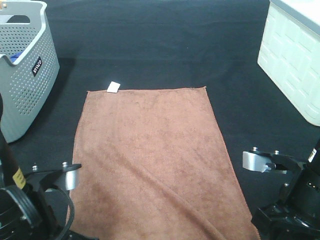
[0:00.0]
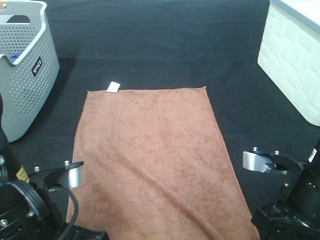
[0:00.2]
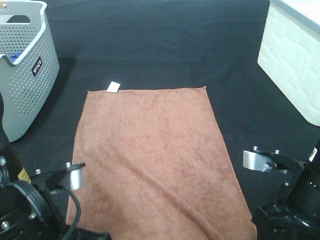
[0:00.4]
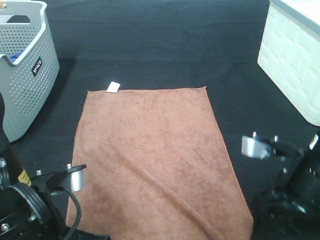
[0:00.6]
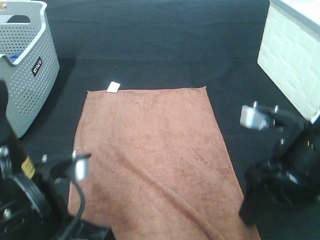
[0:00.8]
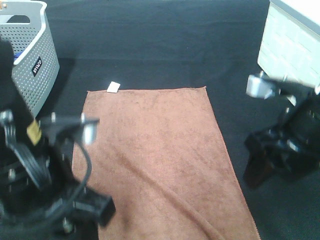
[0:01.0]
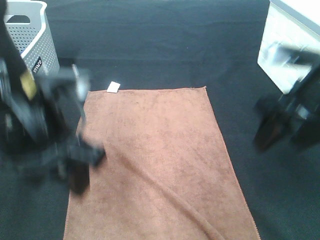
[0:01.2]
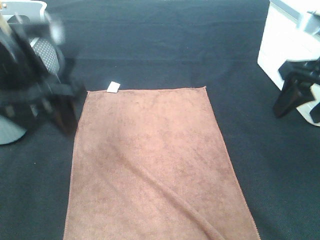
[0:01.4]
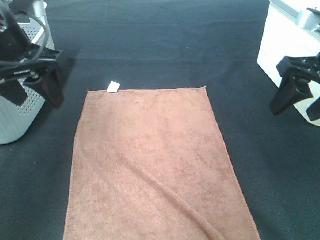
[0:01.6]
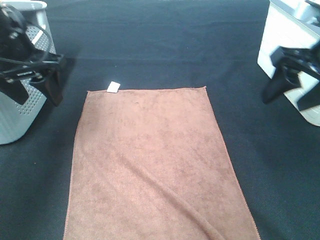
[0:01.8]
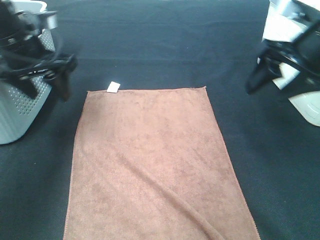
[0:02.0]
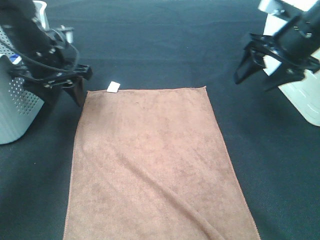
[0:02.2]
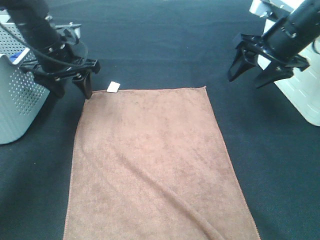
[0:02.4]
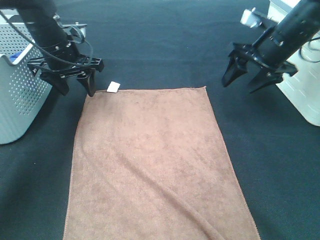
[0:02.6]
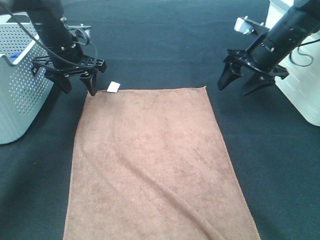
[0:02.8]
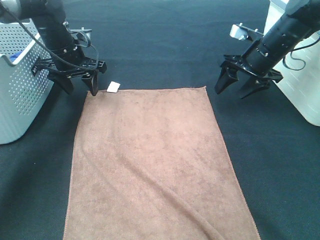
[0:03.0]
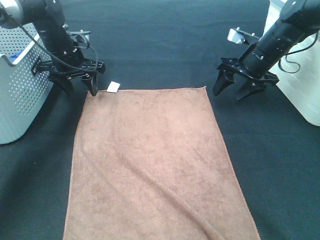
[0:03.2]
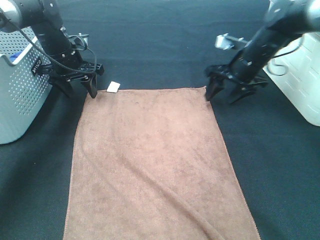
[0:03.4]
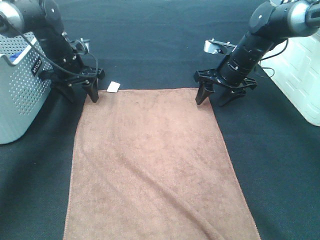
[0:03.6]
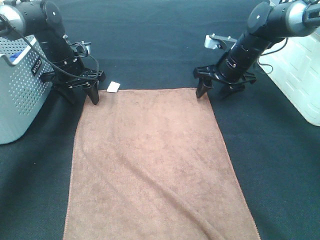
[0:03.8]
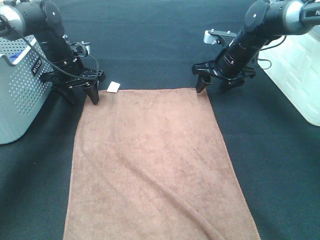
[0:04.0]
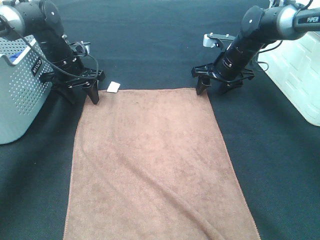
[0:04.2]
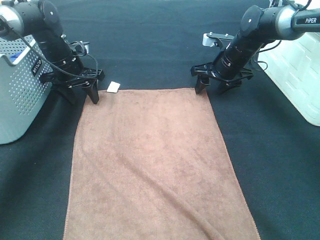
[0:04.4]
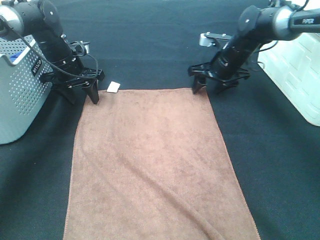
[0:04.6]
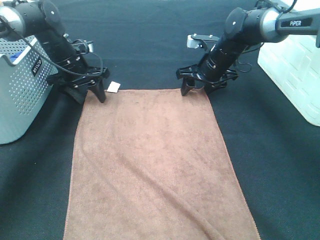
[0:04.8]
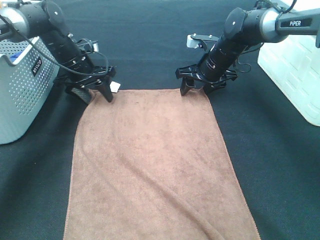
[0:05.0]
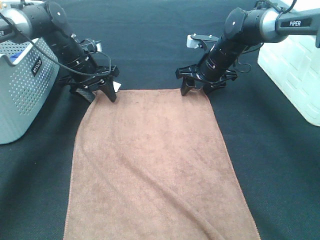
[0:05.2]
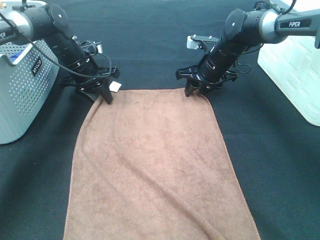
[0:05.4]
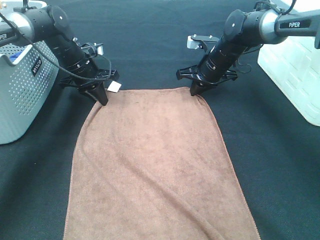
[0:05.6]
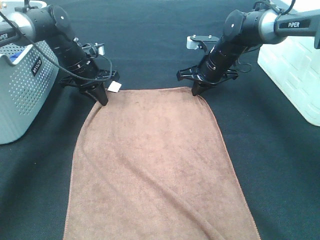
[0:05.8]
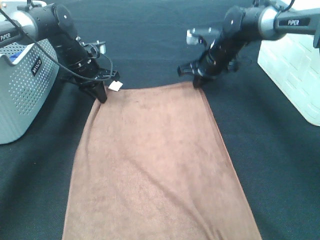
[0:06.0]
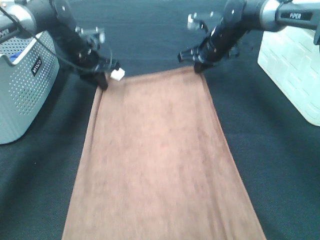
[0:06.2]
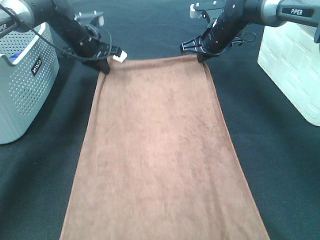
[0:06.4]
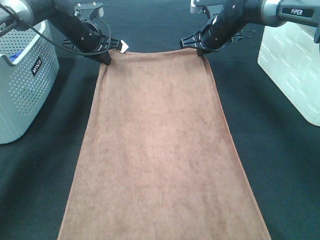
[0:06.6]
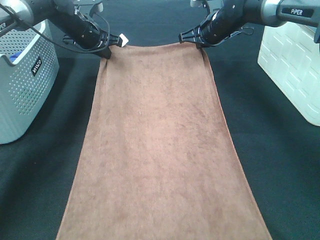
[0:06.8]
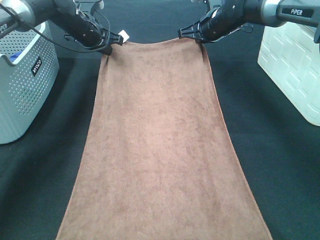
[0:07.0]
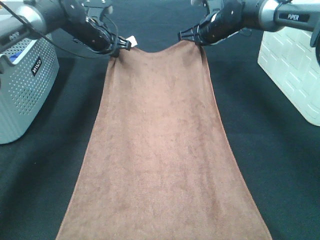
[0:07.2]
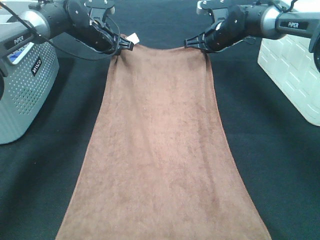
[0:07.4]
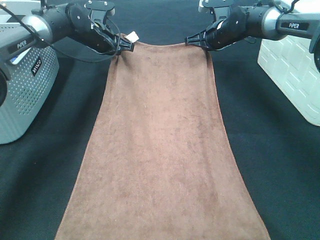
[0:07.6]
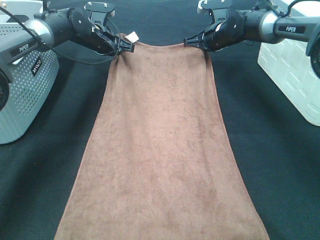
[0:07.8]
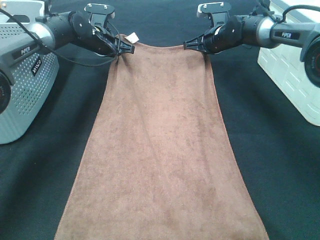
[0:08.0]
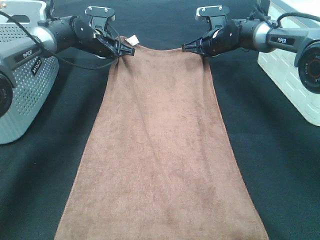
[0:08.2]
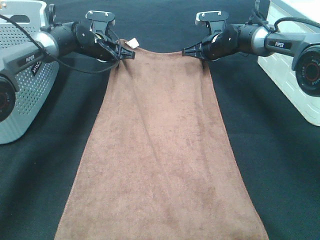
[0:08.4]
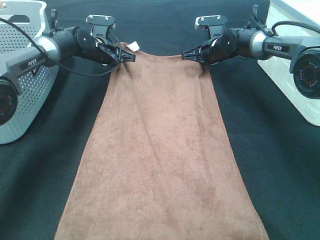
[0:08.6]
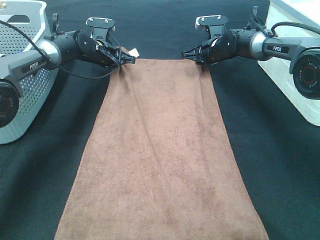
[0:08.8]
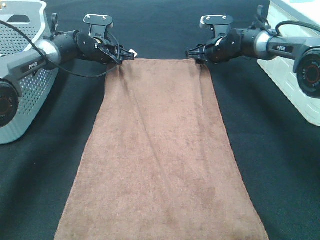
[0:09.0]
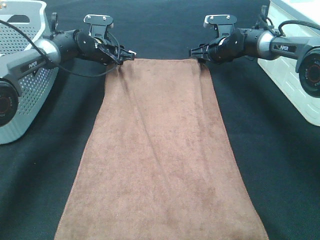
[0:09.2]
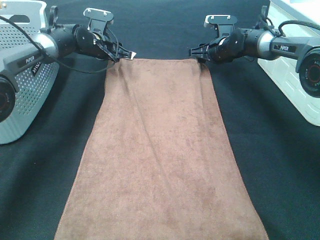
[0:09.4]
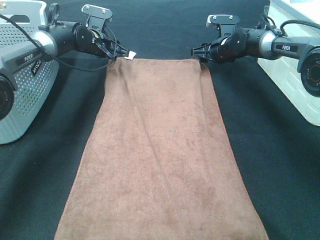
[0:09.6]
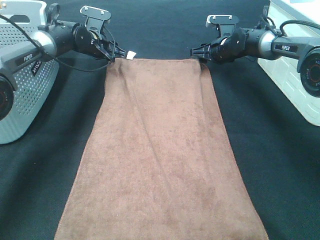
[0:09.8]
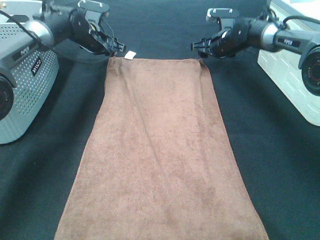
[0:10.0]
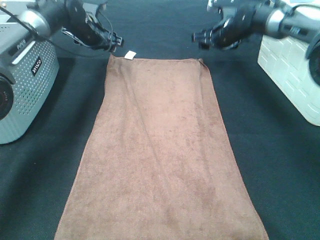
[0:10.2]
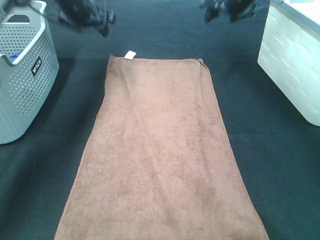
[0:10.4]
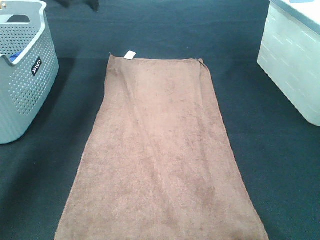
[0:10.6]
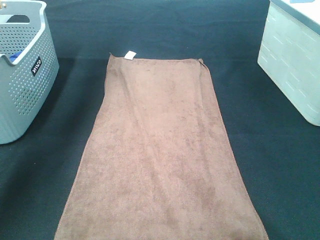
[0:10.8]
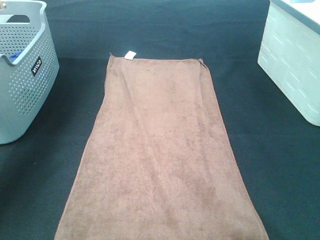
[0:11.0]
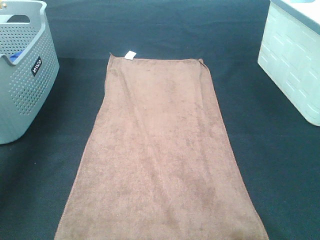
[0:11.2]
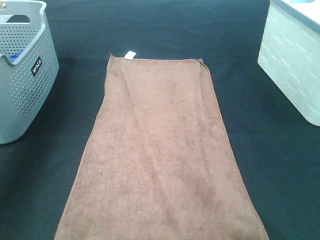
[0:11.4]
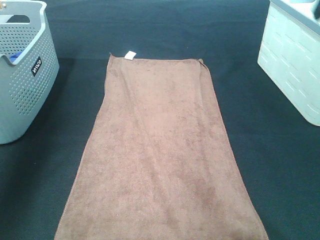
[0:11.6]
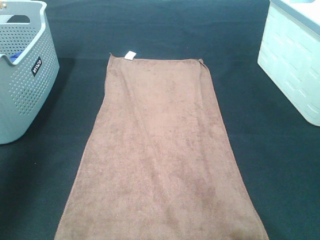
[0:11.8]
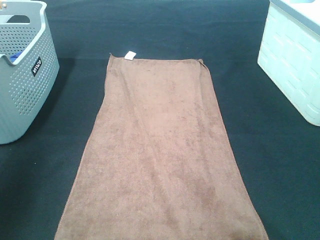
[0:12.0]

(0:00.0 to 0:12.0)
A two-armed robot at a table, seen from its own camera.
Task of the whole recording: Remove the towel and place it.
Step, 0:00.0 - 0:04.2: Left hand:adjust the brown towel.
Step, 0:00.0 - 0:04.2: Right hand:adjust the brown towel.
0:00.0 - 0:01.6: The left gripper goes roughly 20 cm forward and upward, and opens. The right gripper is displaced upward, forward and to the right by roughly 15 cm, and opens.
0:01.6 - 0:03.0: The two grippers go approximately 25 cm forward and downward.
0:03.0 - 0:04.4: The right gripper is displaced to the left by some 5 cm.
0:04.4 - 0:06.0: The right gripper closes its fingers, while the left gripper closes.
0:06.0 - 0:07.6: The grippers both shift forward by approximately 5 cm.
0:07.6 - 0:09.0: The right gripper heads downward, covering approximately 5 cm, and opens its fingers, while the left gripper opens.
0:09.0 - 0:10.4: The two grippers go about 15 cm upward.
0:10.4 - 0:12.0: Both grippers move backward, about 40 cm.

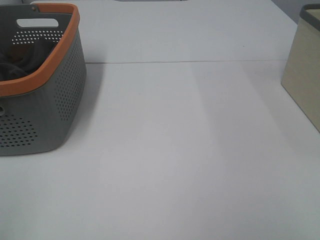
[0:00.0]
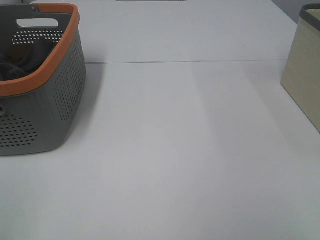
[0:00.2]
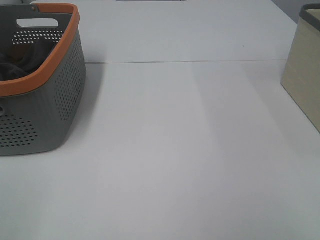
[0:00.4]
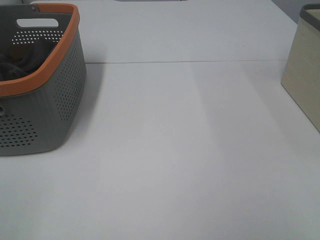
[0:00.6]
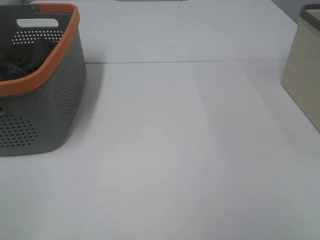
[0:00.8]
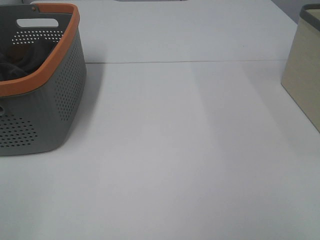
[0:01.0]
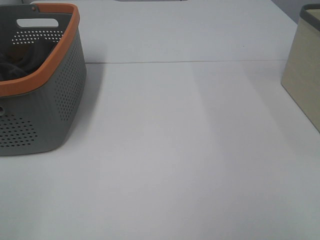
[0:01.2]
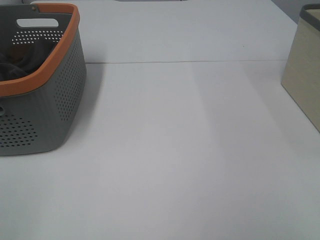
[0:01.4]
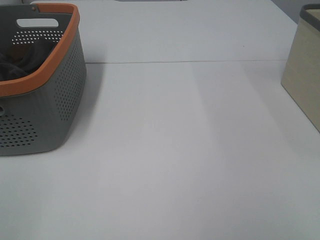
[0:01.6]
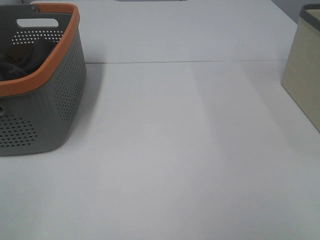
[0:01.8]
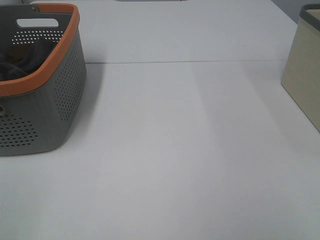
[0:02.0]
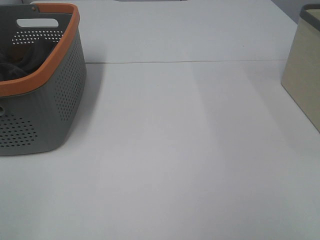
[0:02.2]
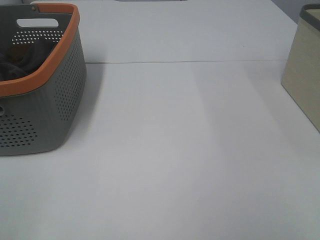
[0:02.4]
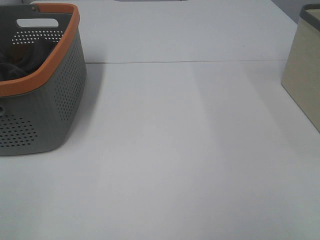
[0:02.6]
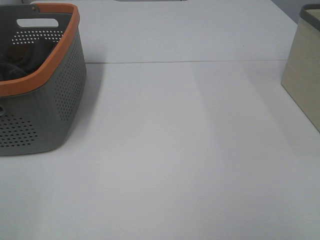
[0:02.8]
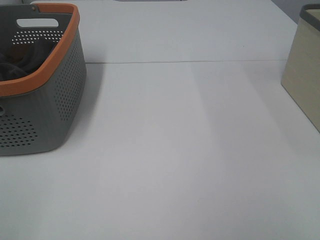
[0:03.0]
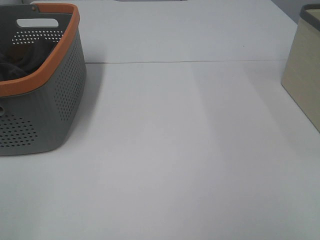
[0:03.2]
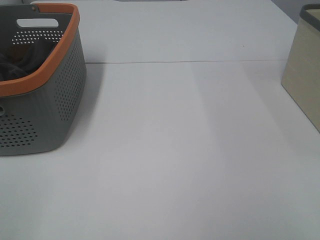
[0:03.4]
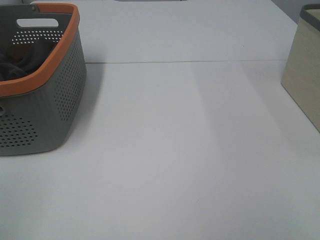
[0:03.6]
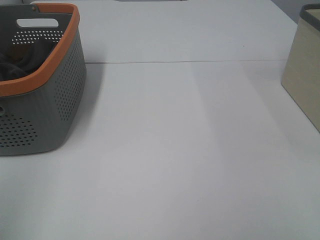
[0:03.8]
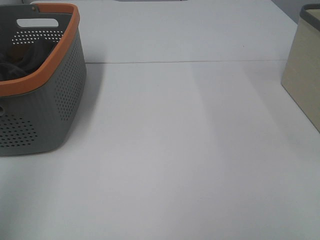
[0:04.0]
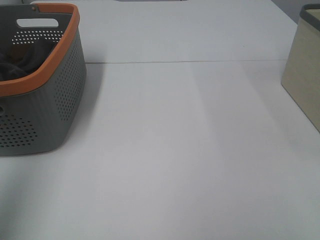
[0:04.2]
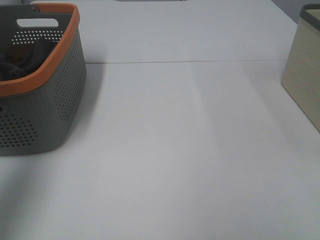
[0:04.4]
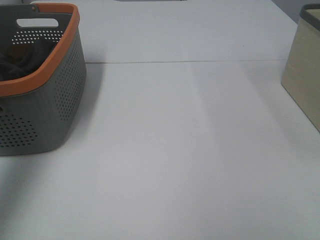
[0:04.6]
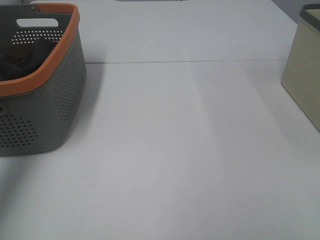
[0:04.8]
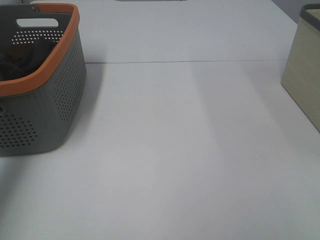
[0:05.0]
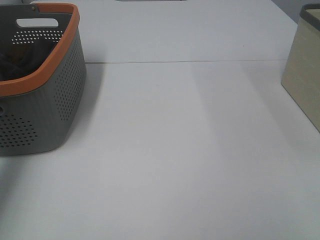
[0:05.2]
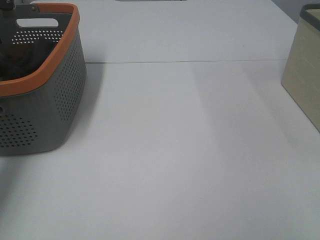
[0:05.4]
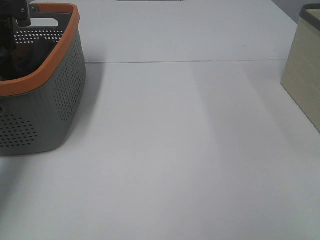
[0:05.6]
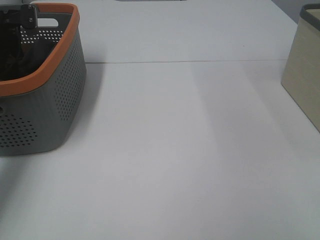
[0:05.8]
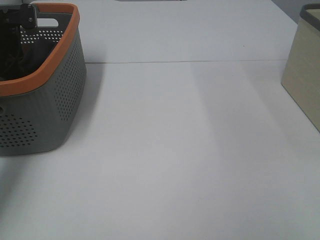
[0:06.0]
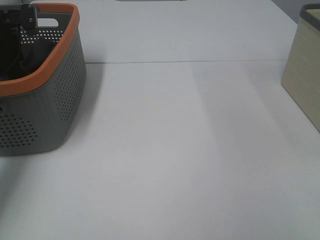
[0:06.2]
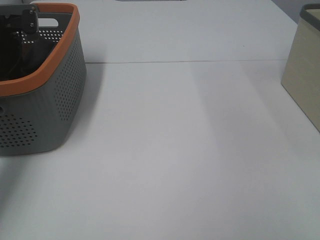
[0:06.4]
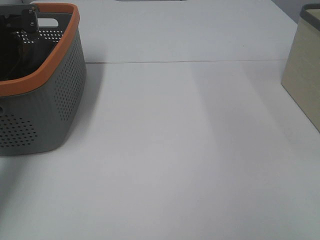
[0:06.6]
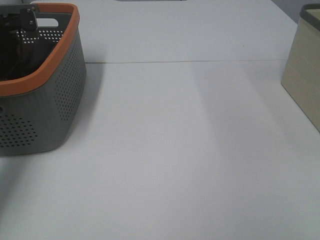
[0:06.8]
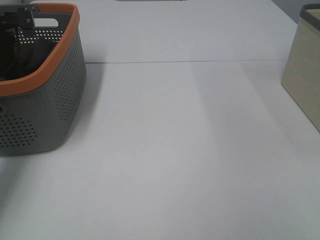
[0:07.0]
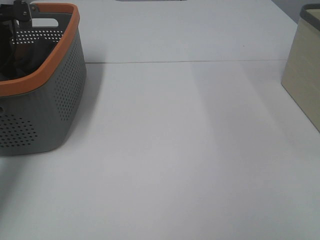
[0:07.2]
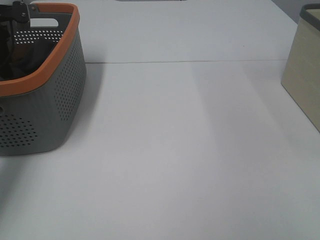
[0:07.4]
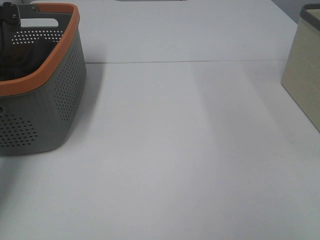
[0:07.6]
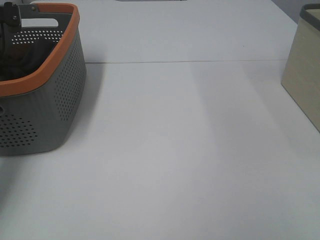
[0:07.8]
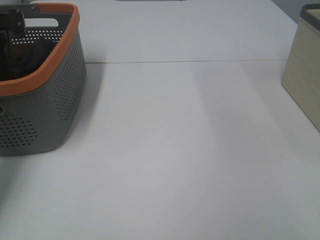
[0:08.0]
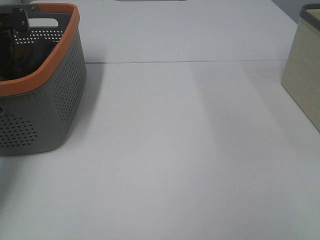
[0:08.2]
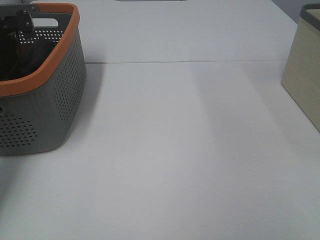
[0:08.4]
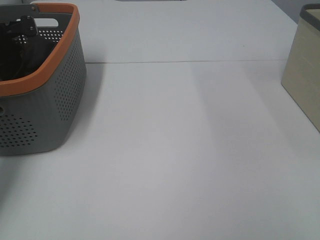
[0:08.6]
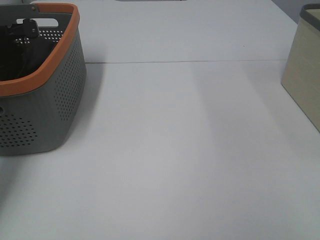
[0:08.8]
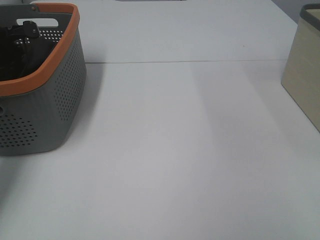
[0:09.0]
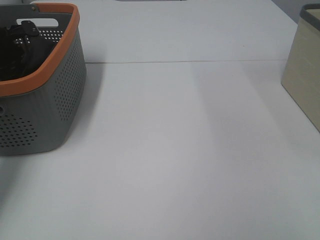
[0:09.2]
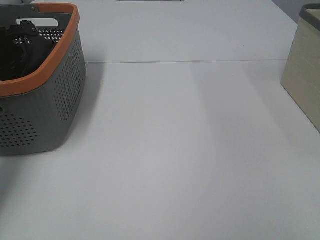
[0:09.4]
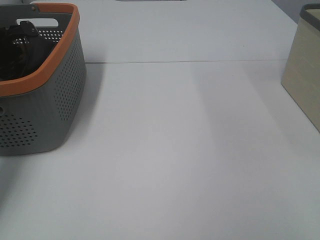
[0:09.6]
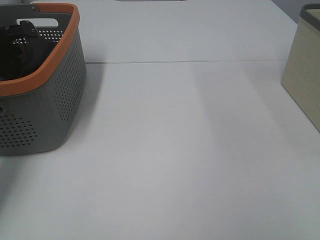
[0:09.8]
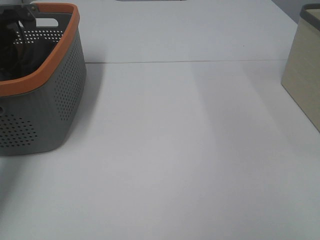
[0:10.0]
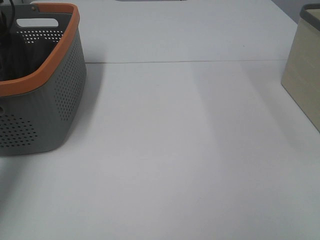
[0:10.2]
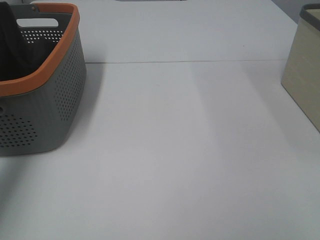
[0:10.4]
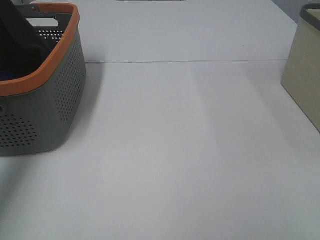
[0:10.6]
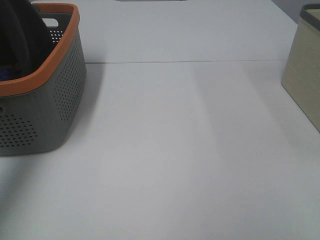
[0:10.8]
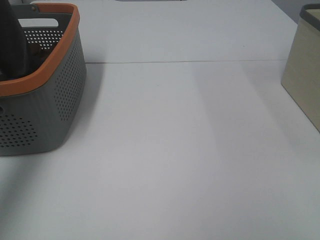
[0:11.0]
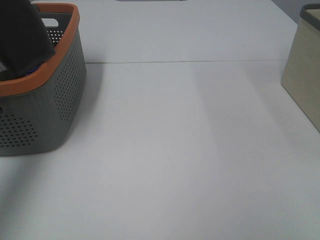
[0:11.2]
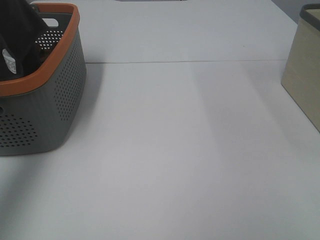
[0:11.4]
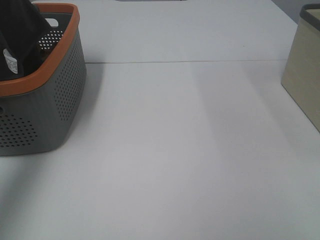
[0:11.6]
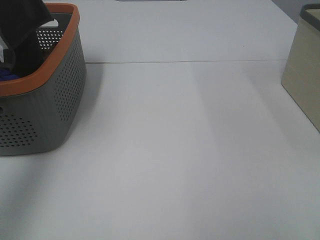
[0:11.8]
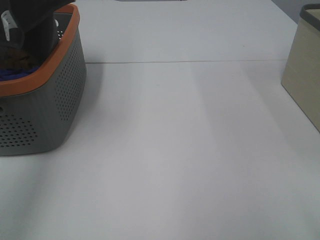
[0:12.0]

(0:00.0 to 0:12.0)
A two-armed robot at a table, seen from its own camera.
Task of the whole recording: Remove the towel and place it.
0:01.6 - 0:03.0: The two grippers keep their place.
0:03.0 - 0:04.4: The left gripper is displaced forward and upward by some 25 cm.
0:04.4 - 0:06.0: The left gripper moves forward and downward, some 35 cm.
0:10.4 - 0:12.0: The left gripper is displaced upward and backward by roughly 30 cm.
